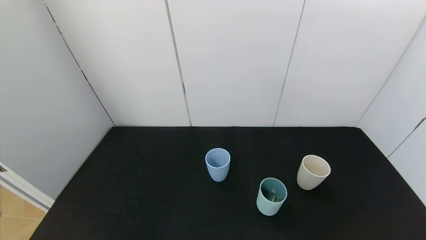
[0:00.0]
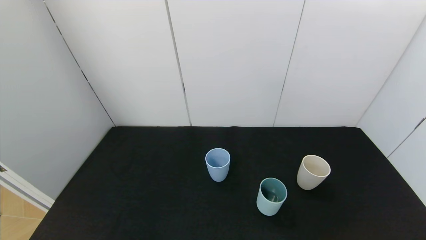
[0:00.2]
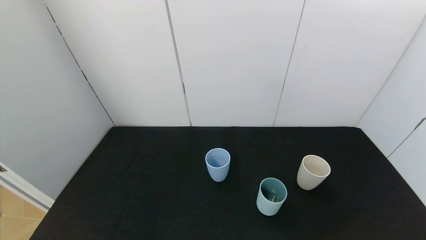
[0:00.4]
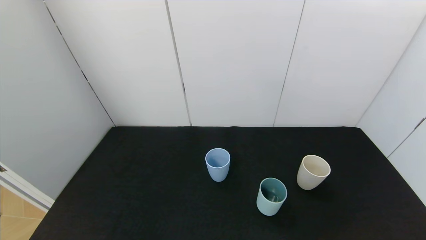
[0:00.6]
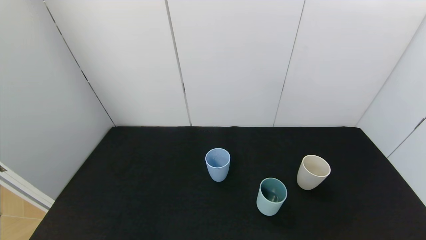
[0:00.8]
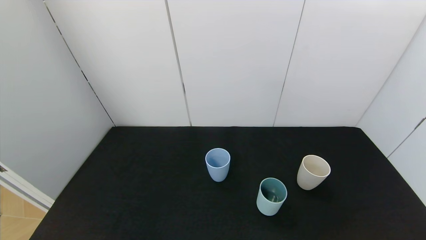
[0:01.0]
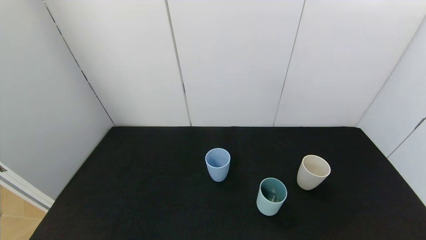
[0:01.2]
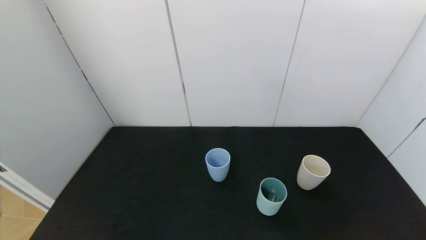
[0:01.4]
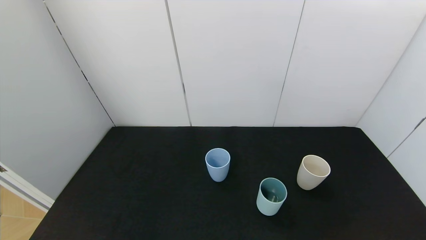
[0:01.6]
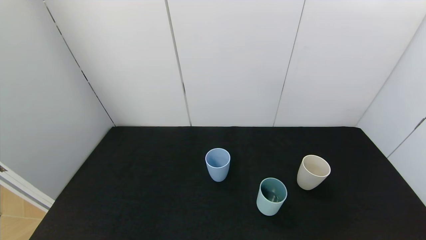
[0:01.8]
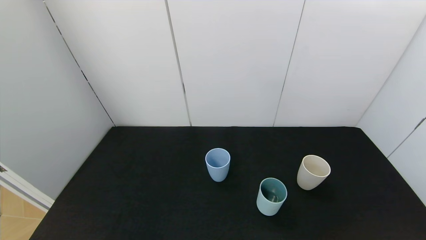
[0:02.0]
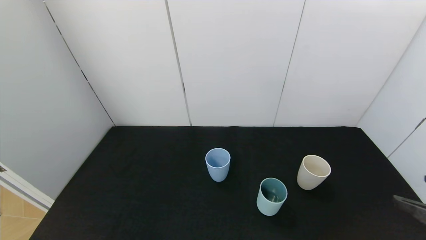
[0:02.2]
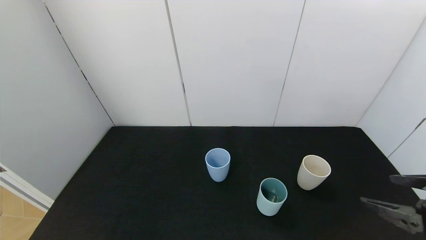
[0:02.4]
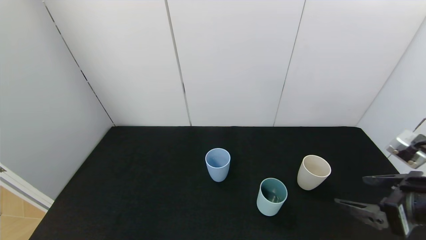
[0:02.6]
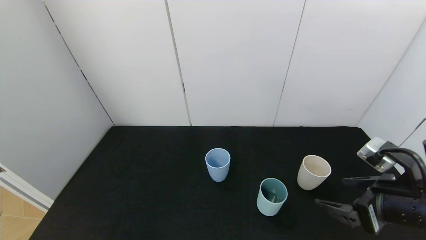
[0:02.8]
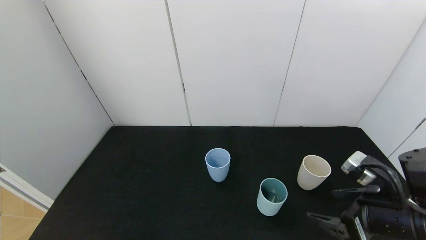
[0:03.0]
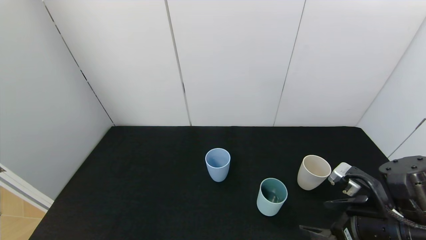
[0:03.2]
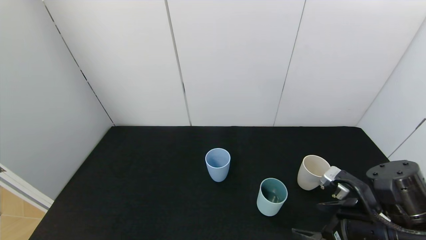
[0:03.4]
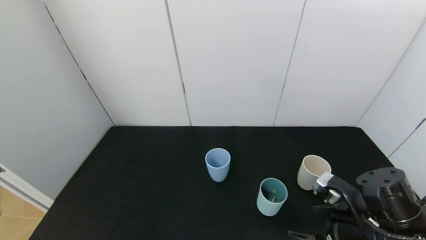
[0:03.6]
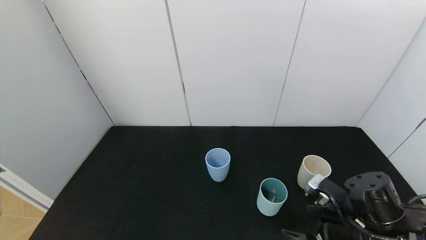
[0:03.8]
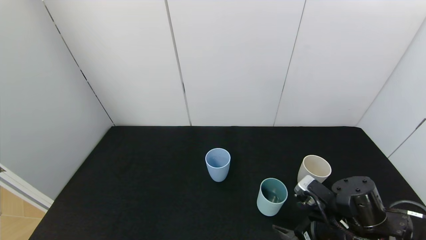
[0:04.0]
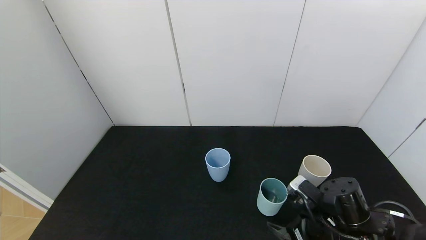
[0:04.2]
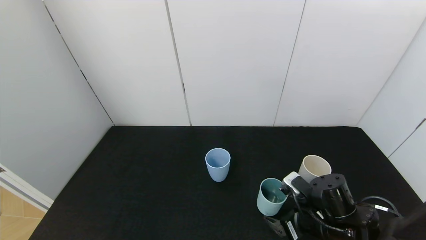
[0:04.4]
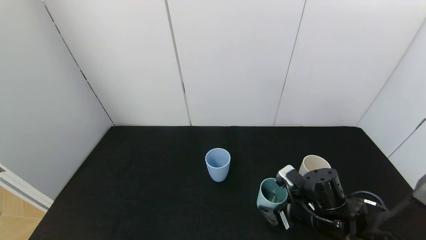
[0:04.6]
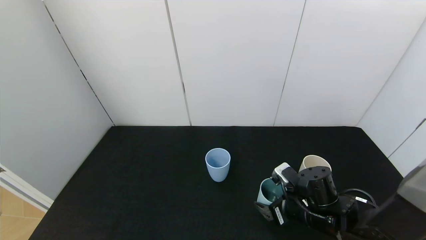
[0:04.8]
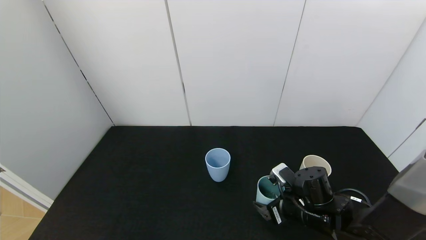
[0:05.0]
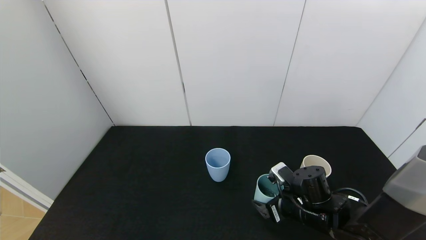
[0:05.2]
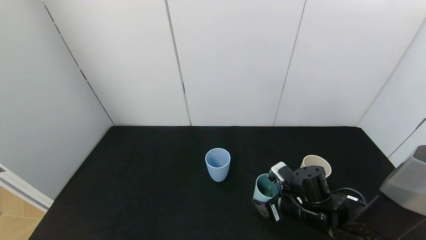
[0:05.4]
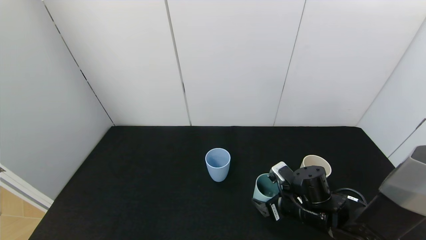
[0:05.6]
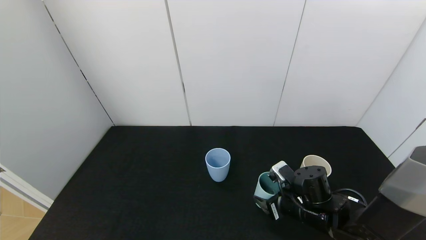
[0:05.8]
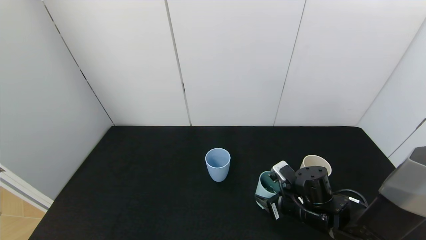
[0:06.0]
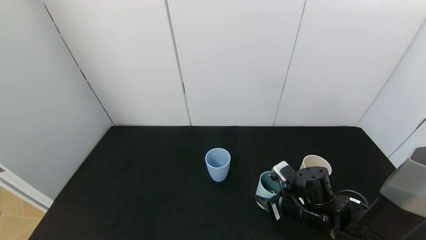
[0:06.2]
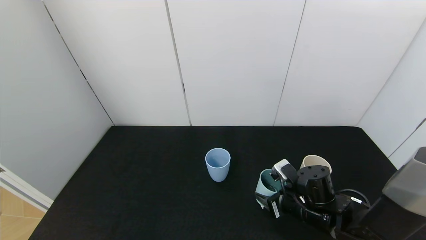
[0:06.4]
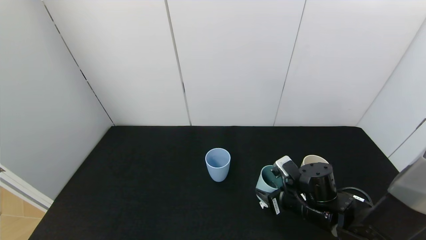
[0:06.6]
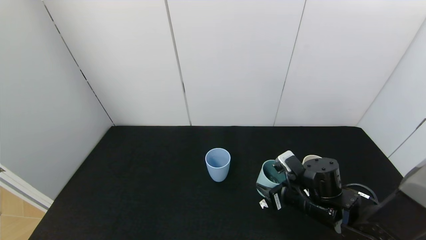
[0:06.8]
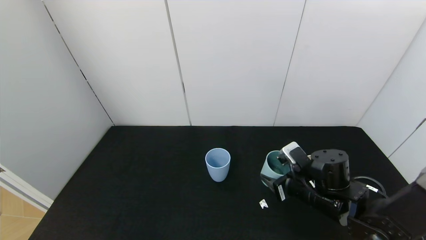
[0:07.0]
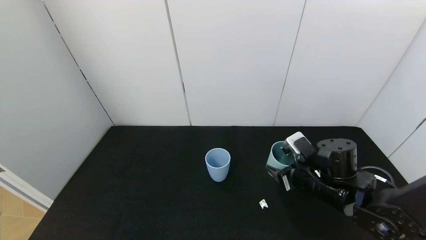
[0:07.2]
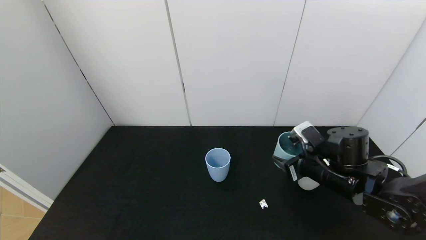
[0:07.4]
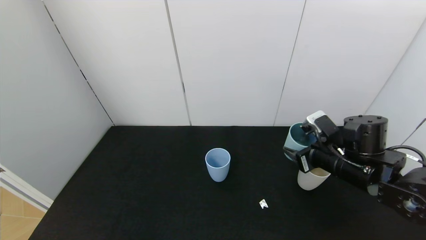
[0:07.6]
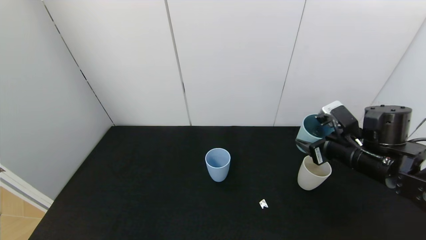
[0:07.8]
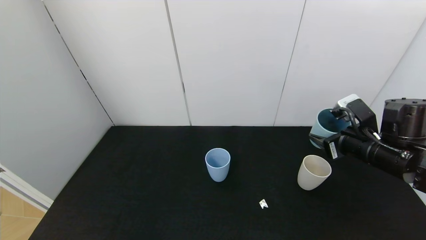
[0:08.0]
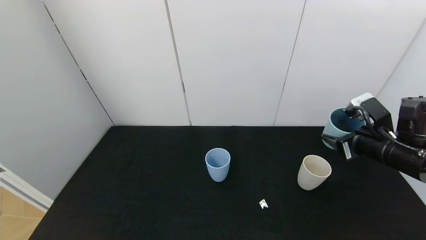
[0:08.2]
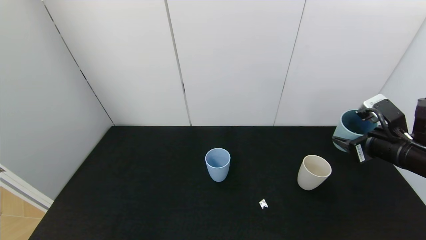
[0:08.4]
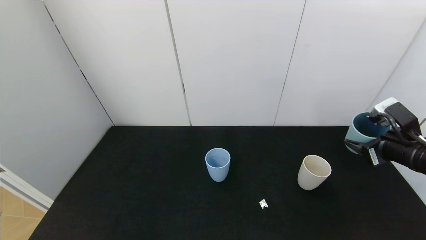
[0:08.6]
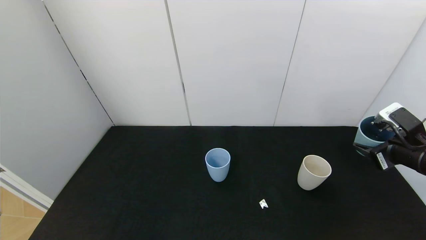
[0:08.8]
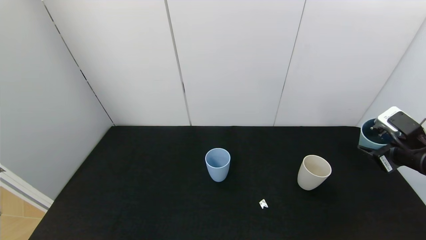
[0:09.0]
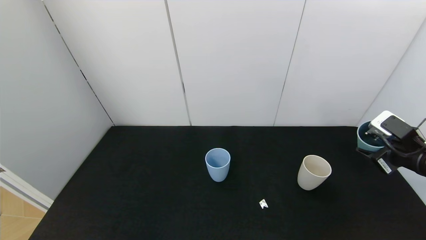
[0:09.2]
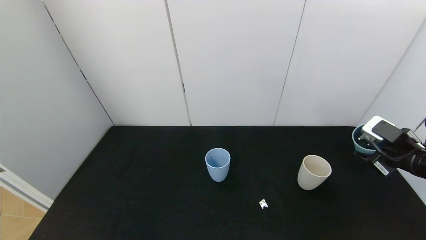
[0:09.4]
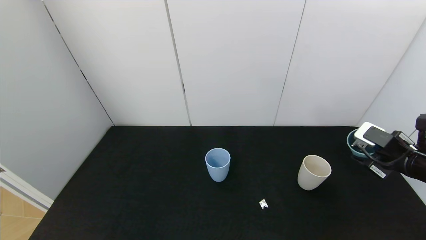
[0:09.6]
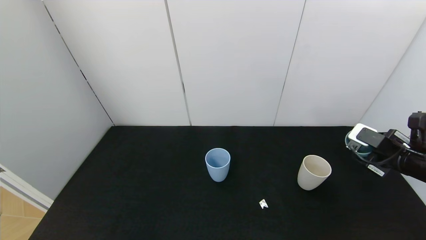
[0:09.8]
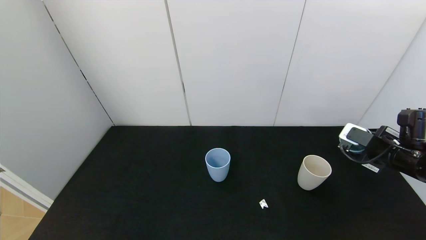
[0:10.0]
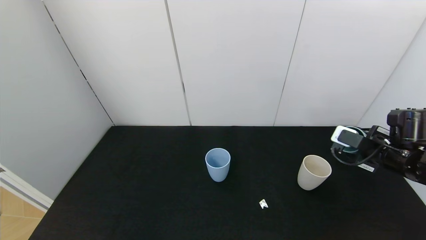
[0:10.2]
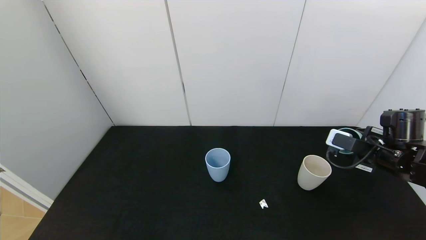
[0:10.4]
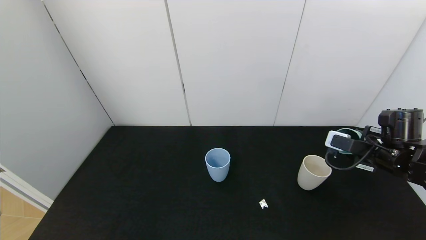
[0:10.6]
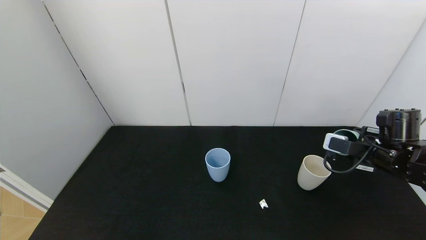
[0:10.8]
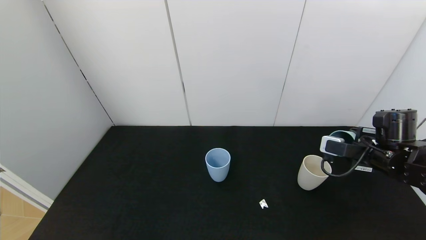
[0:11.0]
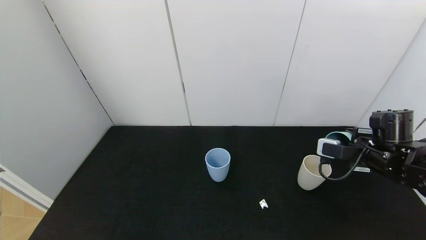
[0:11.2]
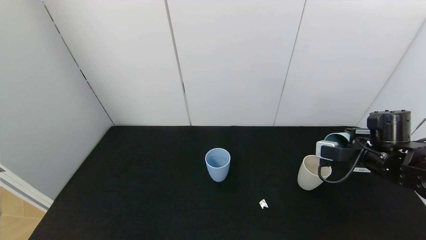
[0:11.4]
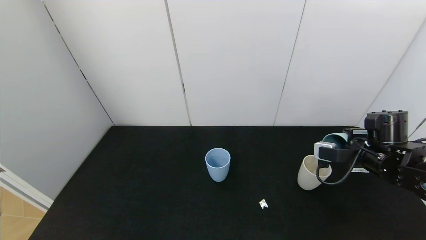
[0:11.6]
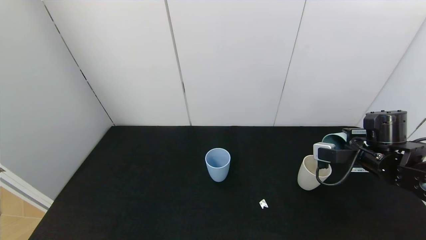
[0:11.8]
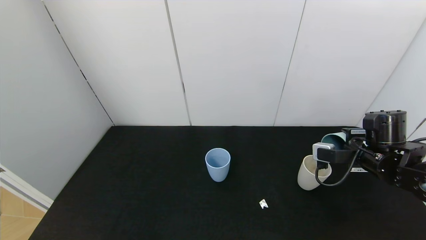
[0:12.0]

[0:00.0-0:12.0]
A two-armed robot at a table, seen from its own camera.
Task of the whole recording: use the gripper to pour the water into the other two cups on black table.
Step, 0:00.0 to 0:06.2: Grasp the green cup with the right gripper.
0:01.6 to 0:03.0: The right gripper heads forward and to the left, covering roughly 20 cm.
0:03.0 to 0:04.4: The right gripper heads downward, to the left and forward, covering approximately 15 cm.
0:04.4 to 0:06.0: The right gripper closes its fingers.
0:06.0 to 0:07.6: The right gripper shifts about 15 cm upward and to the right.
0:07.6 to 0:09.0: The right gripper travels to the right by some 15 cm.
0:09.0 to 0:10.4: The right gripper moves roughly 5 cm.

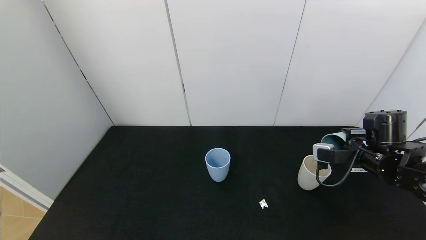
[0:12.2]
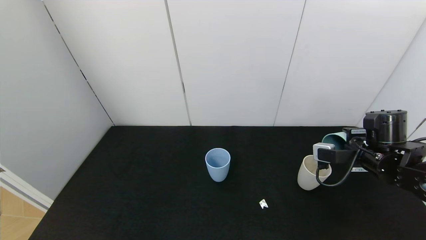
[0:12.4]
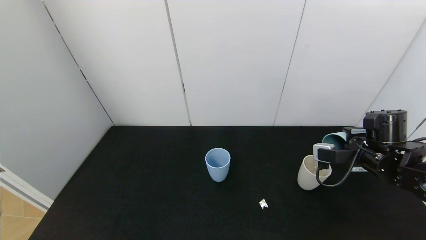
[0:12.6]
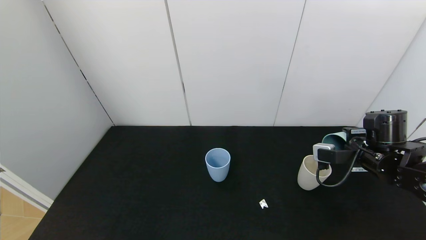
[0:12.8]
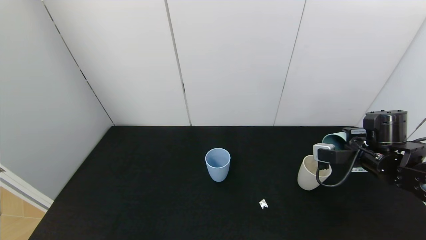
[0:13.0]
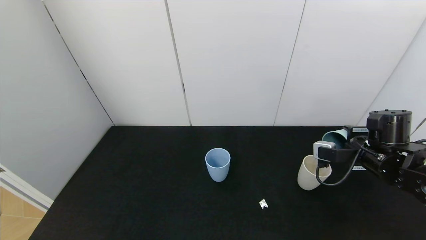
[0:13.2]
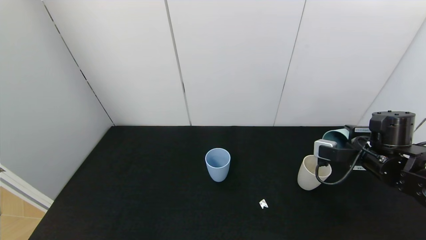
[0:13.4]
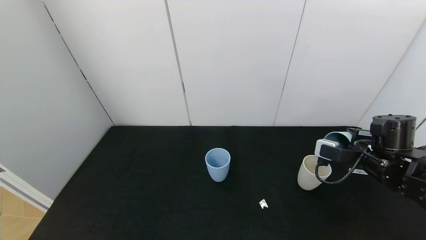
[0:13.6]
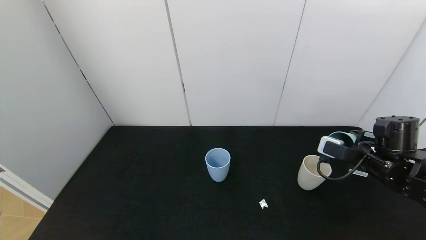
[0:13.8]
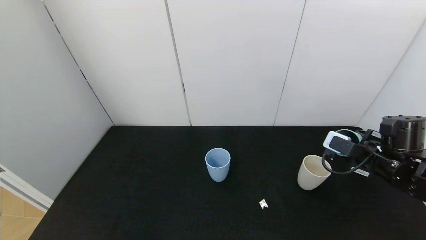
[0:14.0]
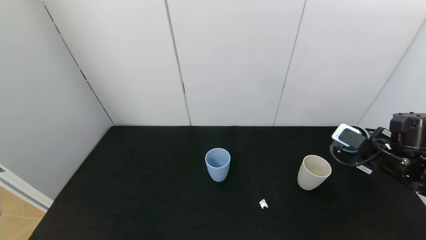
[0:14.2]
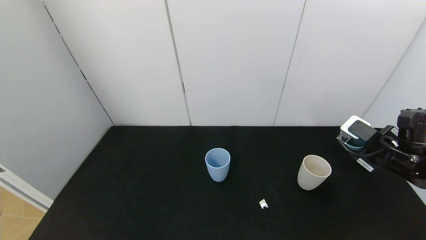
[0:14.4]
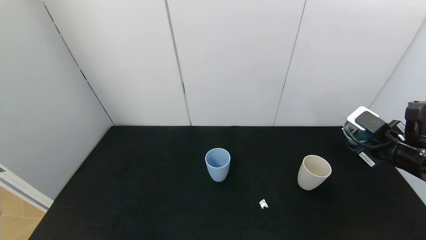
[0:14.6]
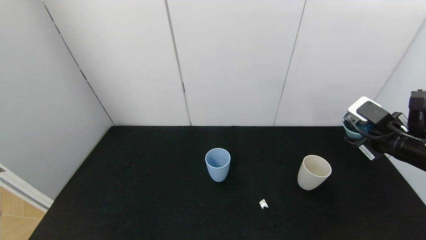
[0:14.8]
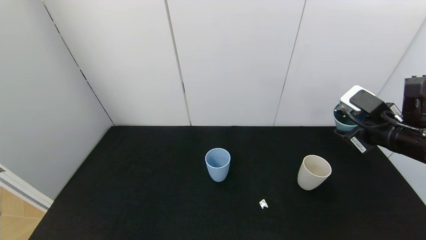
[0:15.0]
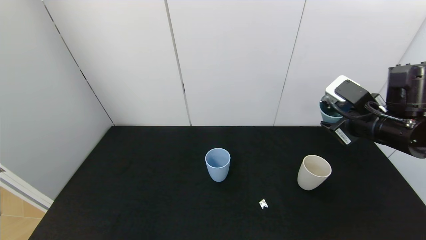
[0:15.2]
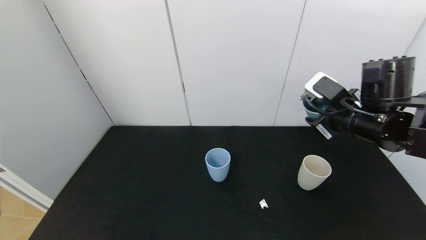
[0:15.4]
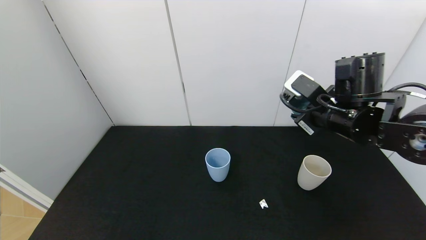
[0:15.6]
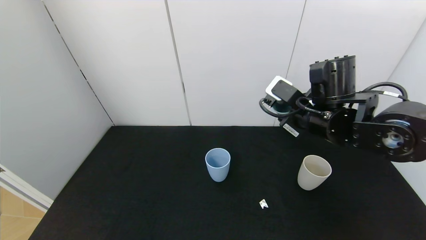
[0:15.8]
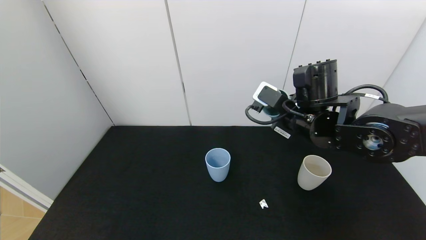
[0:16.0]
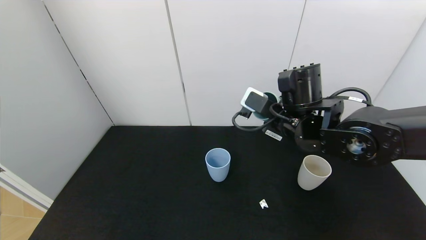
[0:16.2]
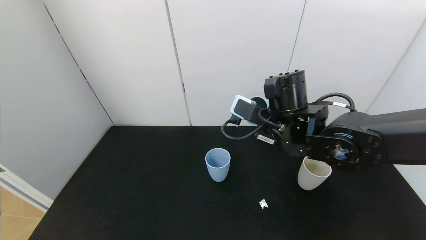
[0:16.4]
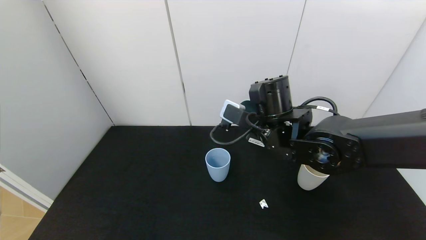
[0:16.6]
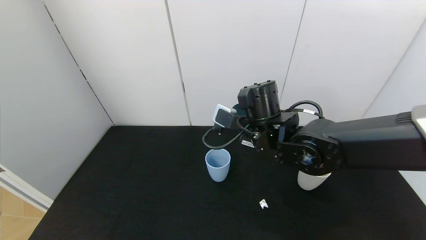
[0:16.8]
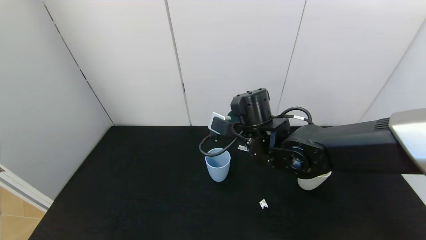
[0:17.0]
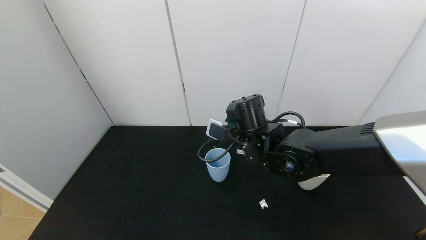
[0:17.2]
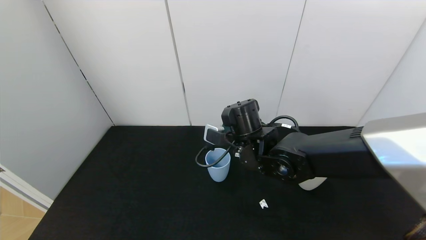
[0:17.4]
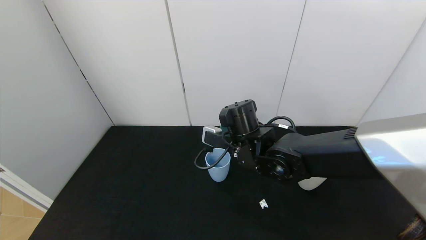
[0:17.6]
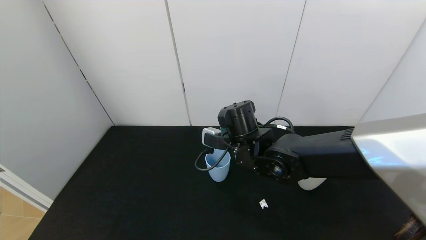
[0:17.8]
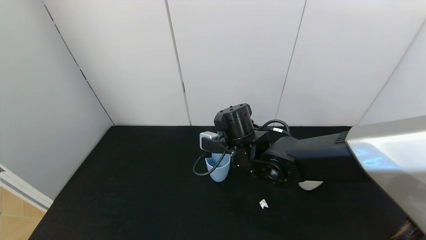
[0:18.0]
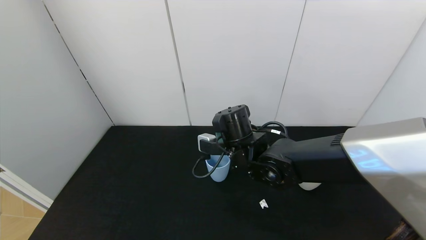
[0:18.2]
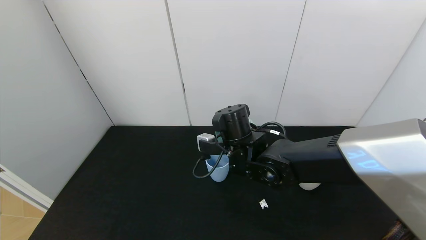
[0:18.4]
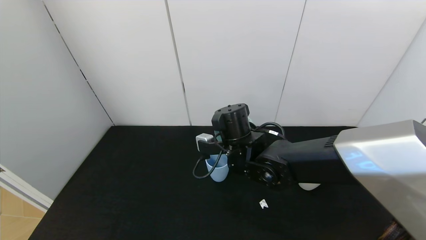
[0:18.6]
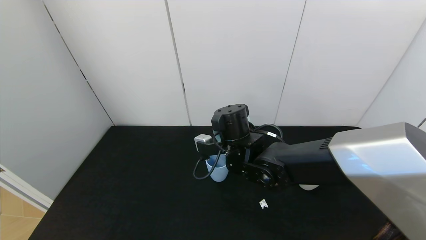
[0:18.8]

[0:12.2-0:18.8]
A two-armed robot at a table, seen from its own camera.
Task of the whole recording: use the gripper to pour the water into the other two cups on black table.
Step, 0:12.2 to 0:14.6: Pour water from green cup to white cup with the right gripper.
0:12.2 to 0:13.8: There are only small adjustments of the grippers.
0:13.8 to 0:15.4: The right gripper shifts about 10 cm upward and to the left.
0:15.4 to 0:17.2: The right gripper shifts about 20 cm to the left.
